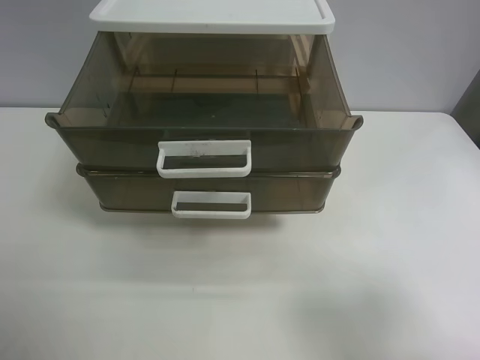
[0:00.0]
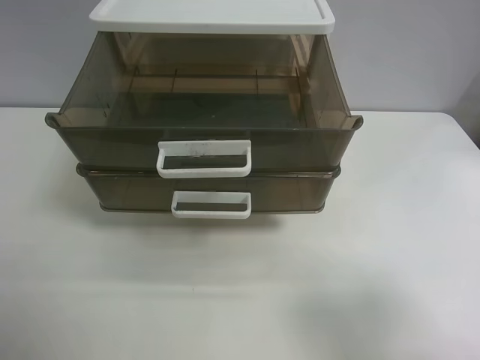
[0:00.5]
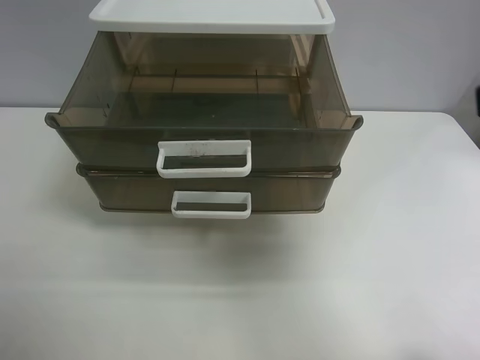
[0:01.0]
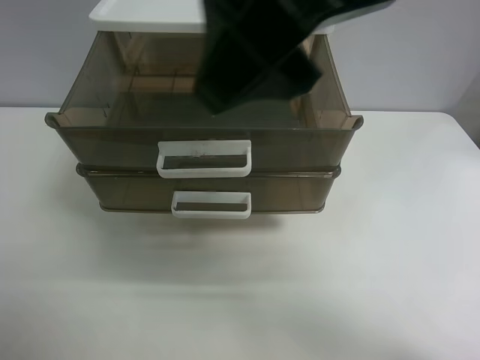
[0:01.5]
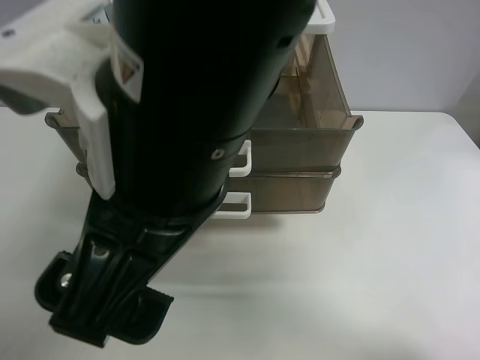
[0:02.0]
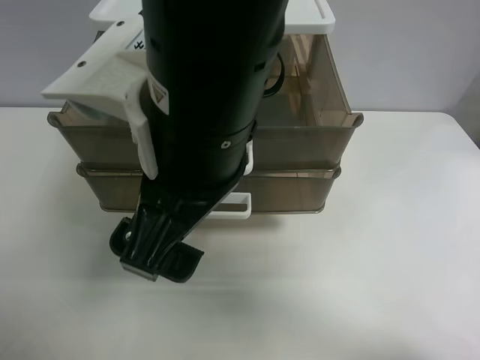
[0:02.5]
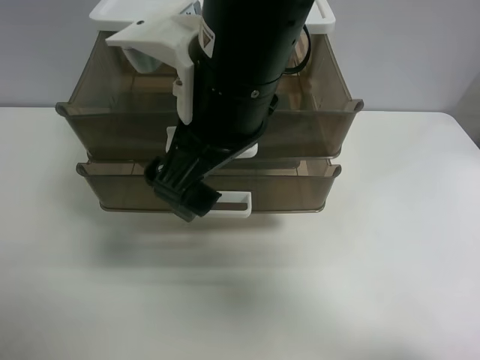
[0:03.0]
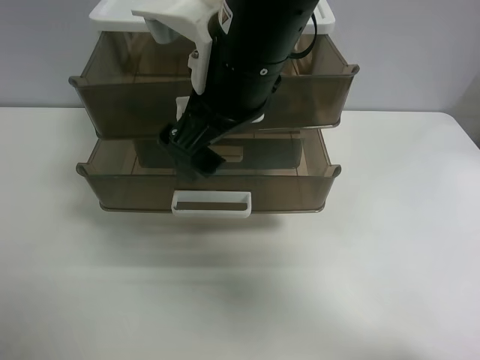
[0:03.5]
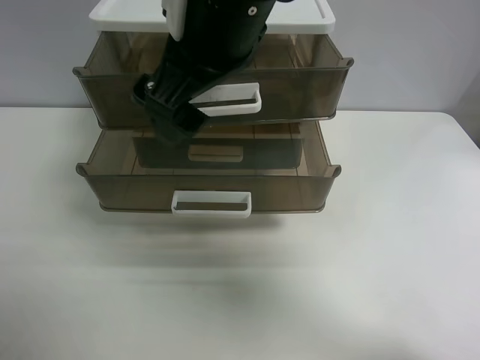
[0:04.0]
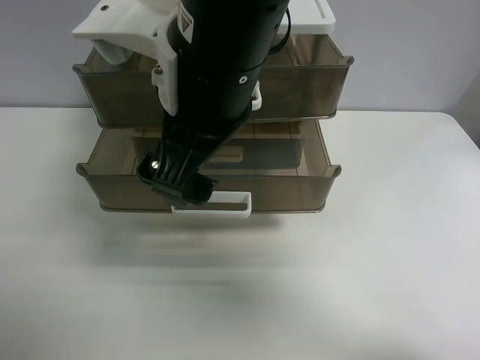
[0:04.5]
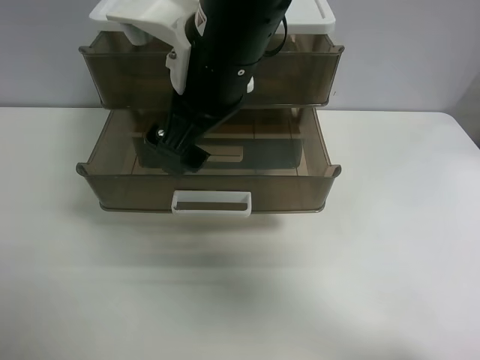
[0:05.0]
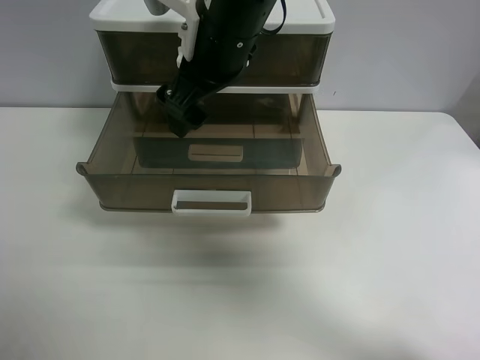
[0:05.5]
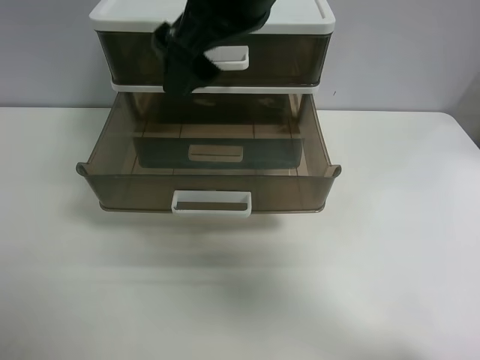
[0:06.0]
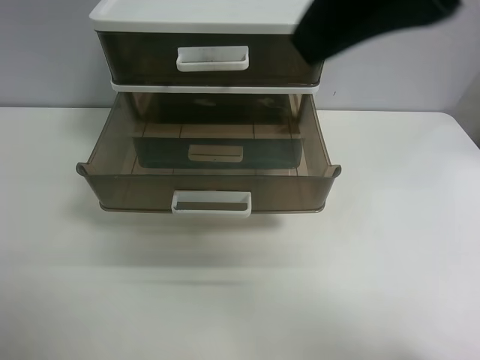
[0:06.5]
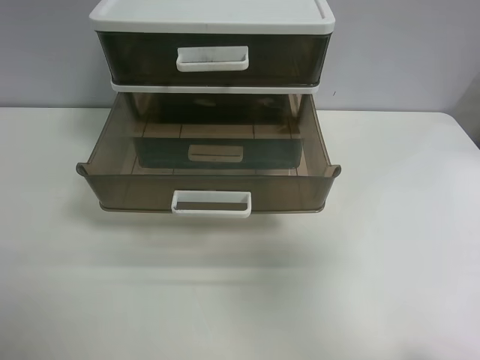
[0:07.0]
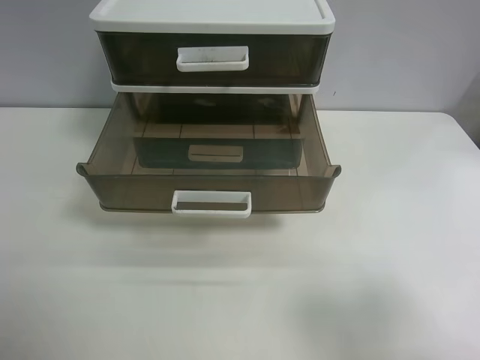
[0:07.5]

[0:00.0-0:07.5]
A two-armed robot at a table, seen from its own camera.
Task of the whole recording: close the top drawer.
Step, 0:00.0 to 0:02.0: Use the right gripper to touch the topmost layer of the storage cabinet.
Step, 0:02.5 to 0:05.5: Push the top drawer closed.
0:00.0 to 0:02.0: The right gripper shifts some 30 cm to the left.
0:02.0 to 0:04.0: The right gripper heads forward, covering approximately 10 cm.
0:04.0 to 0:05.5: The right gripper heads forward, covering roughly 10 cm.
0:05.5 to 0:07.5: The right gripper goes approximately 40 cm backward and to the right.

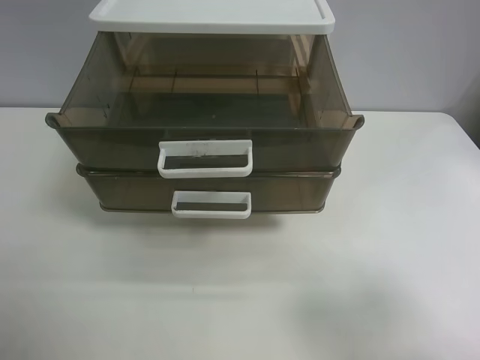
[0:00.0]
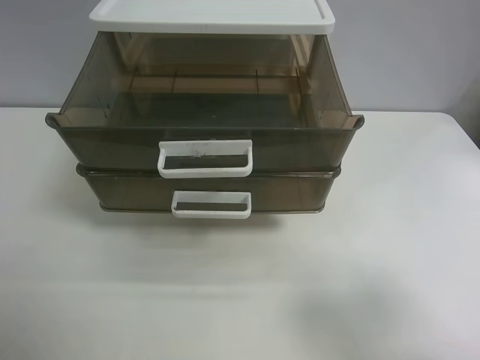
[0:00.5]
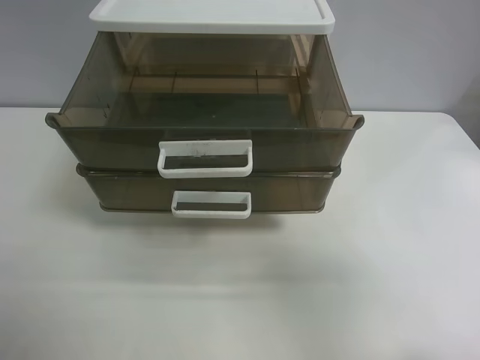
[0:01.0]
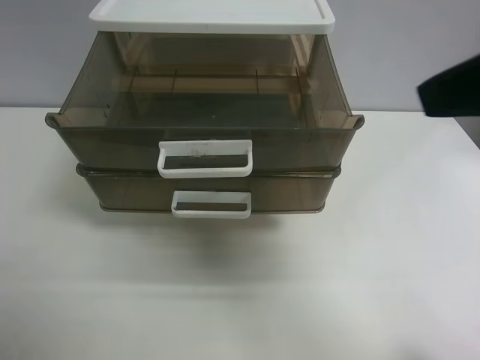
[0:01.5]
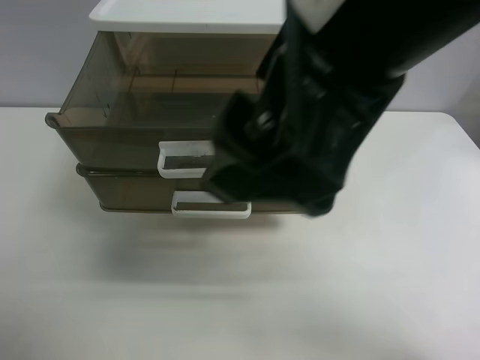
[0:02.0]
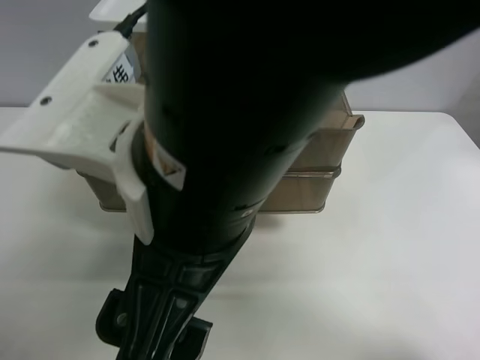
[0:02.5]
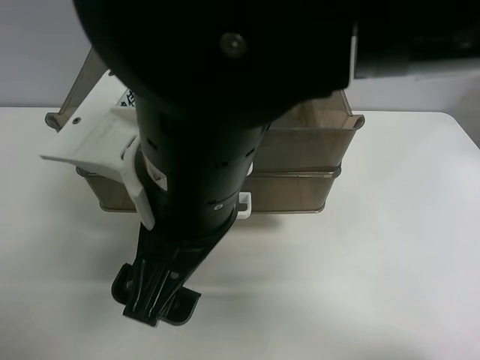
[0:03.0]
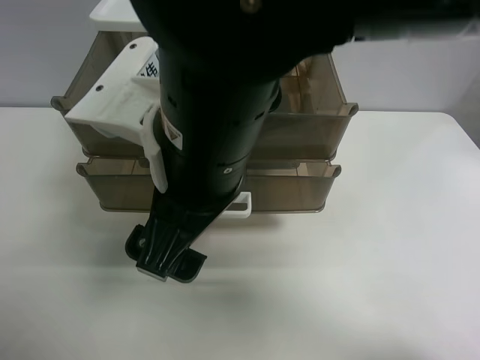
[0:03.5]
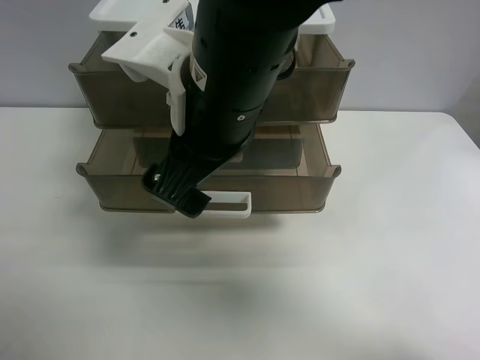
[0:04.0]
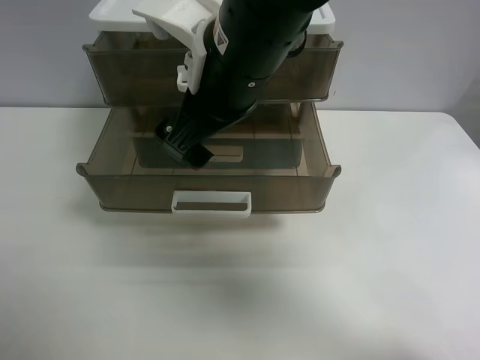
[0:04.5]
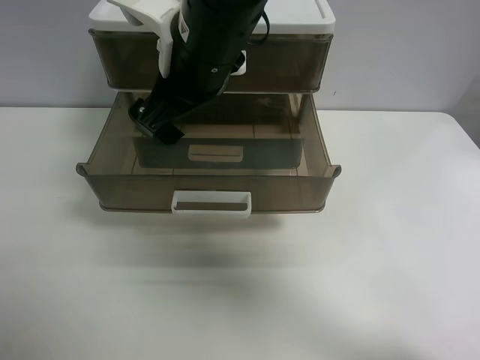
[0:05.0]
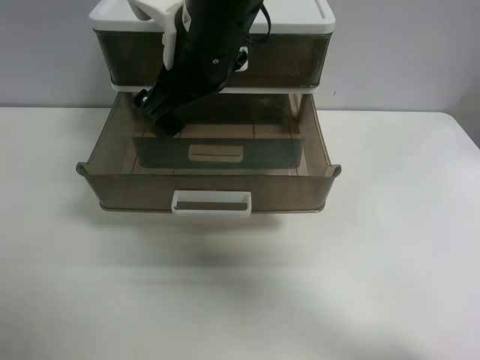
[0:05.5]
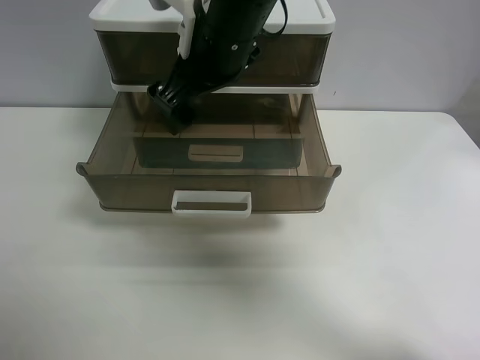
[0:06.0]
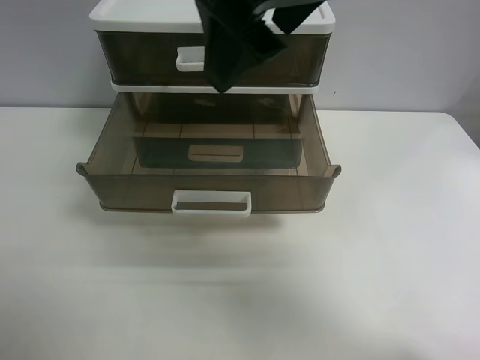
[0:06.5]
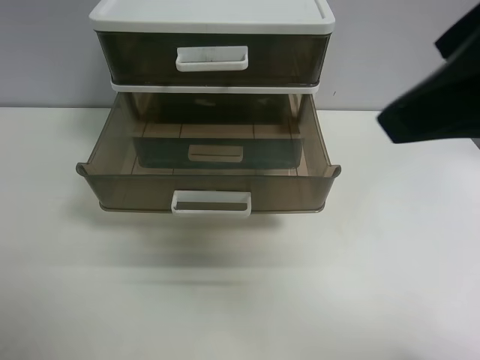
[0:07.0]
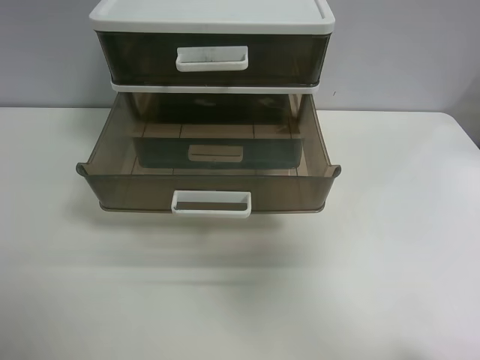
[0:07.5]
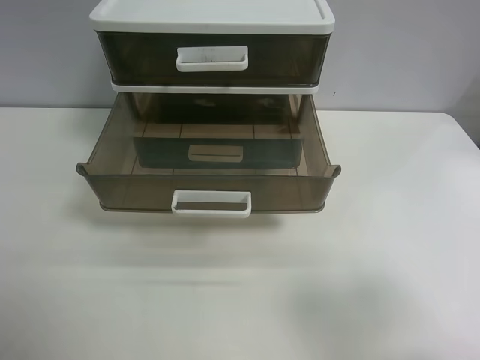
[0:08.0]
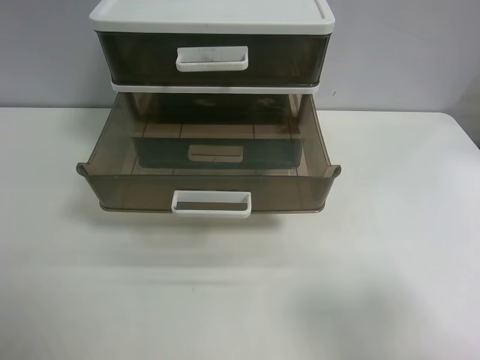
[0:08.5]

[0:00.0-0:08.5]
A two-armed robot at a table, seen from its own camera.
Task of the whole recording: close the top drawer.
Step, 0:00.0 to 0:03.0: Use the right gripper to touch the topmost layer of the storage cabinet.
Step, 0:03.5 to 0:05.5: Push the top drawer closed.
0:00.0 to 0:02.0: The right gripper moves to the left, forward and upward, about 30 cm.
0:02.0 to 0:04.0: The right gripper is displaced downward, forward and to the left by about 15 cm.
0:04.0 to 0:06.5: The right gripper shifts approximately 15 cm upward and to the right.
0:06.5 to 0:08.5: The right gripper moves to the right, backward and downward, some 30 cm.
